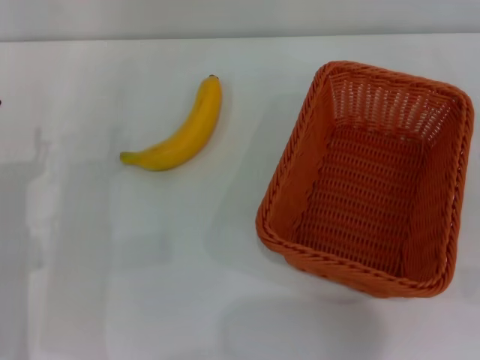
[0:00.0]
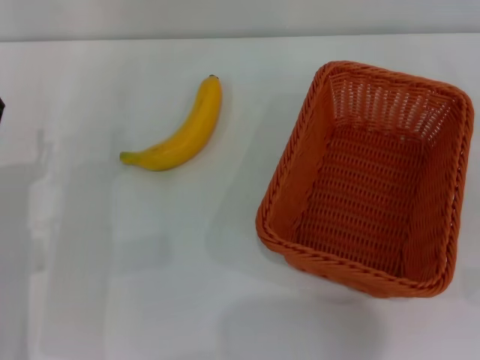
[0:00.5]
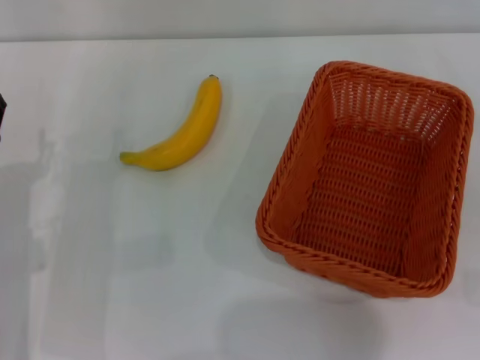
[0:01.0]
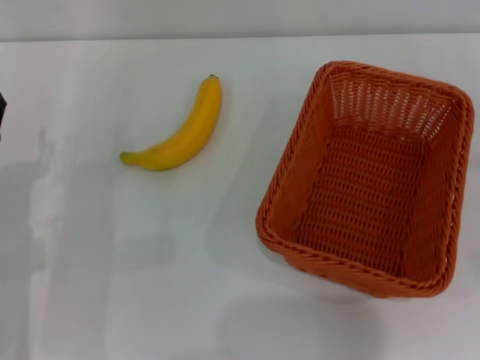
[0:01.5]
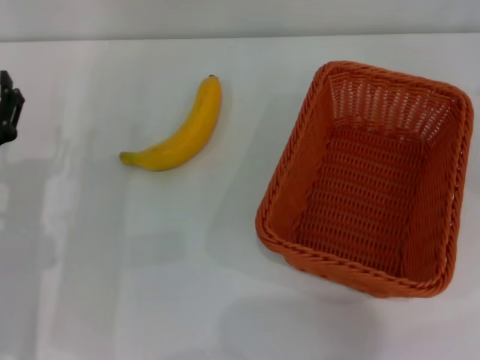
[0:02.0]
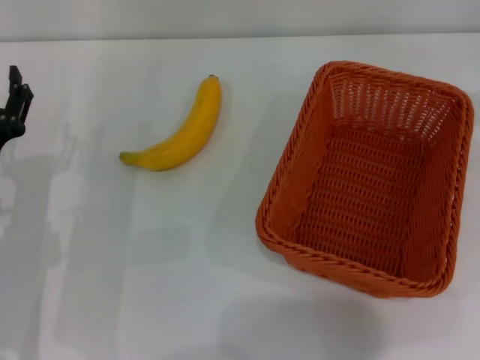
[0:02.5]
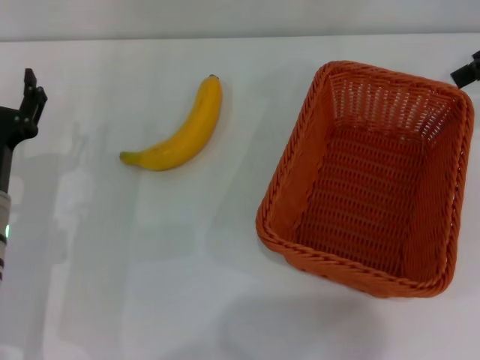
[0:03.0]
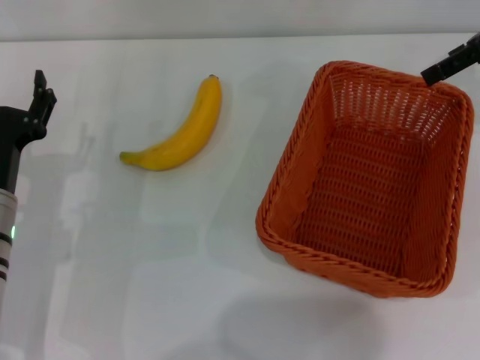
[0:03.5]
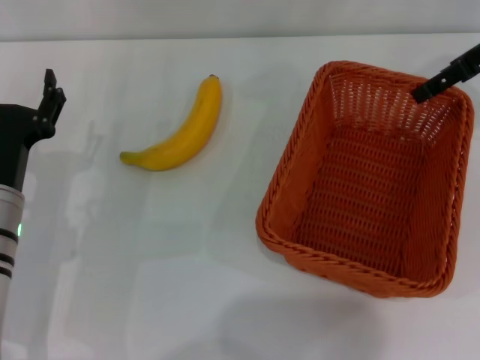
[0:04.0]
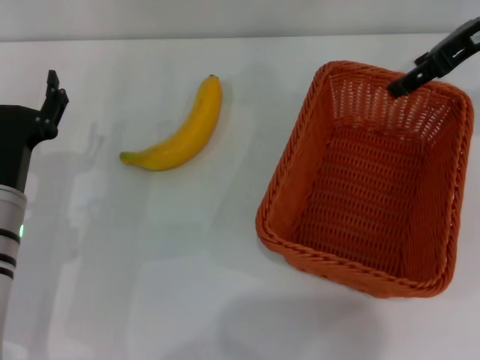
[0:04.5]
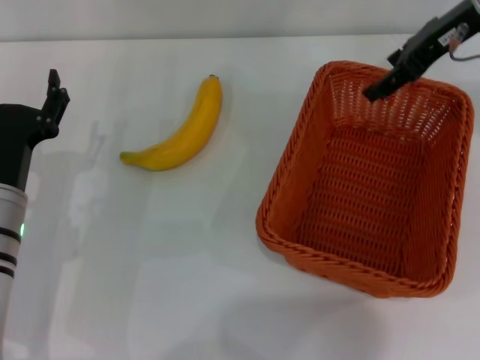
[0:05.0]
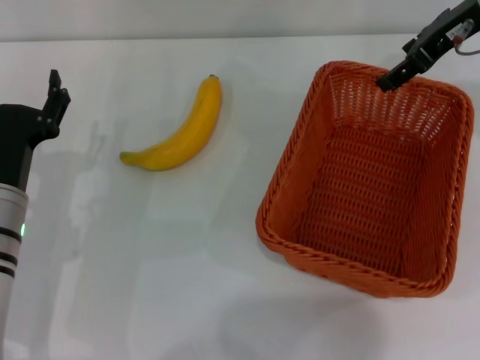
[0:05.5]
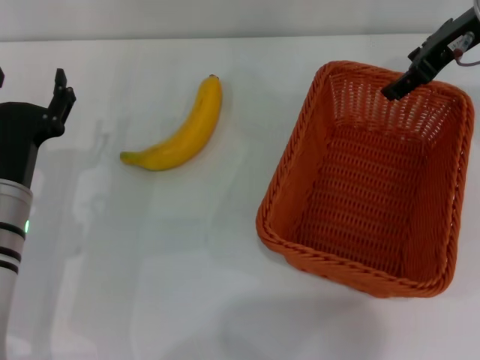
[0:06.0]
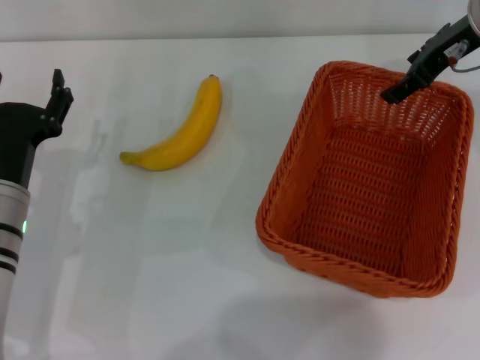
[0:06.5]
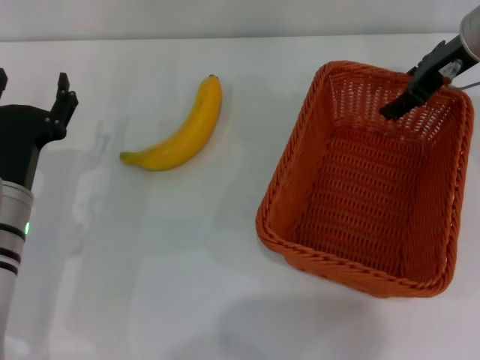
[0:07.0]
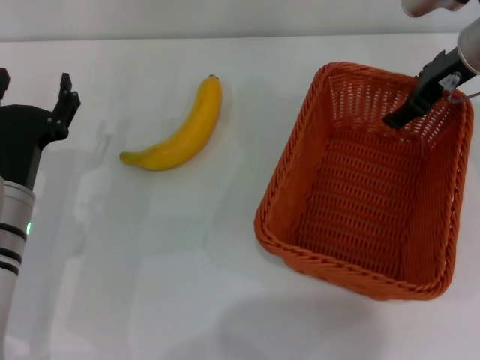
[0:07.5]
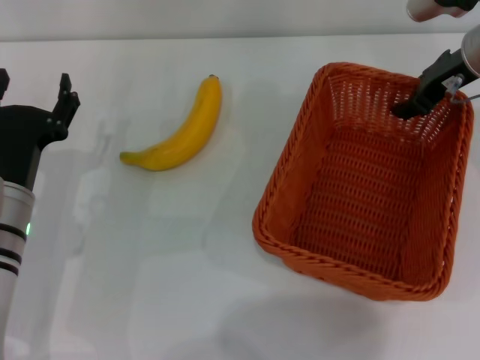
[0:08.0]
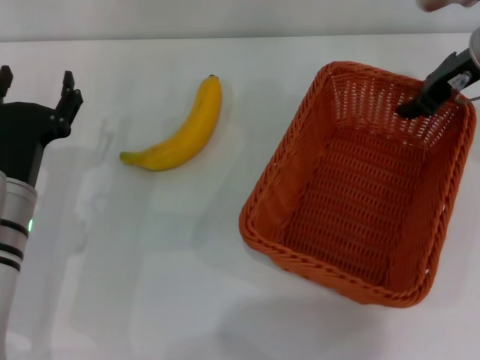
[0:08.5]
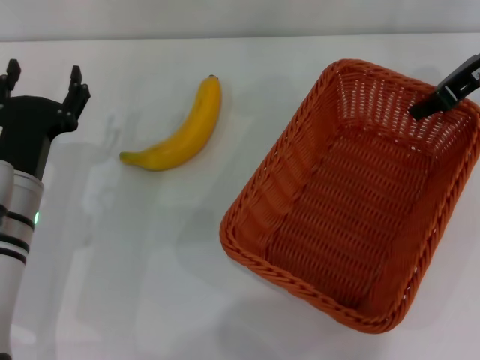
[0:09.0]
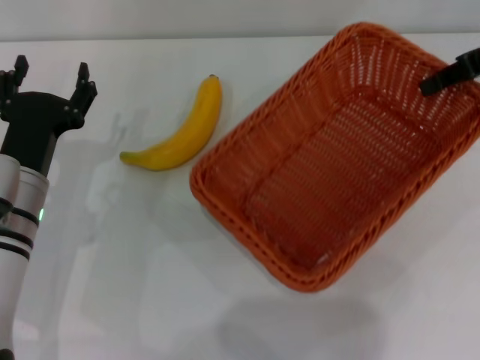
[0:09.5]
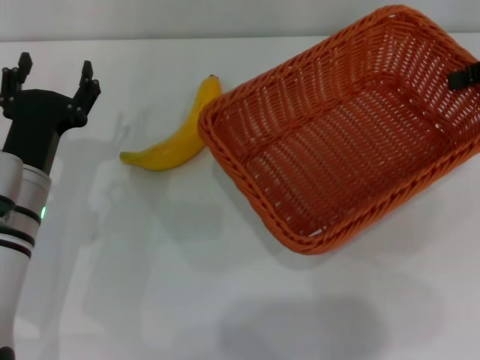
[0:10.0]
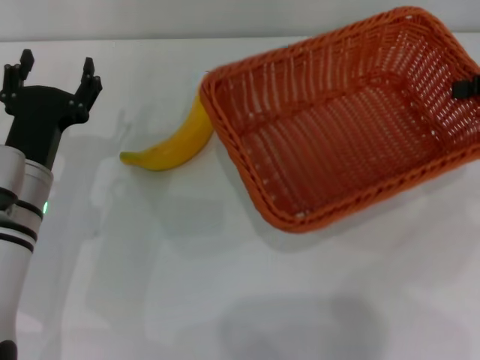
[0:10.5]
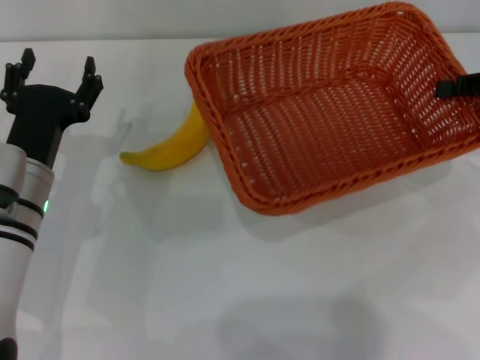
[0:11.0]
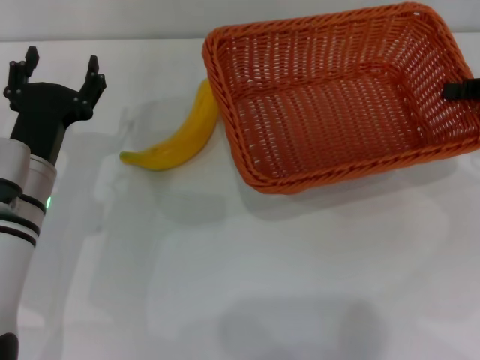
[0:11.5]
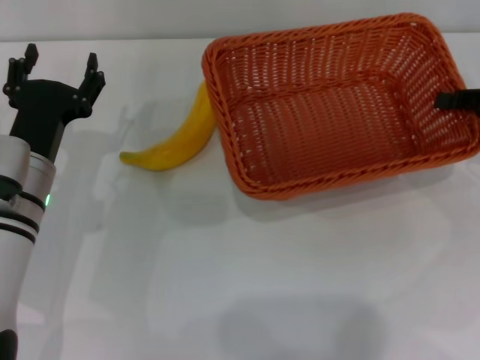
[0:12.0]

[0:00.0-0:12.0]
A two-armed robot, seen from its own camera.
Step, 0:00.0 to 0:08.5: Pick up the light basket with the right gripper.
0:02.0 to 0:04.0: The right gripper heads to the left, forward and upward, covering roughly 20 cm.
0:04.0 to 0:06.0: The right gripper goes some 5 cm to the left.
0:06.0 to 0:08.0: There are only small adjustments of the grippers.
0:08.0 to 0:10.0: The right gripper heads to the right, covering roughly 10 cm, and closes.
0:10.0 to 0:12.0: The right gripper travels downward by approximately 10 cm.

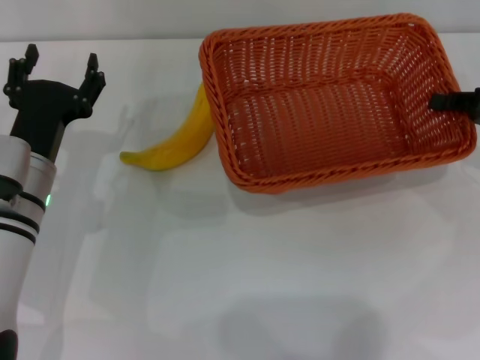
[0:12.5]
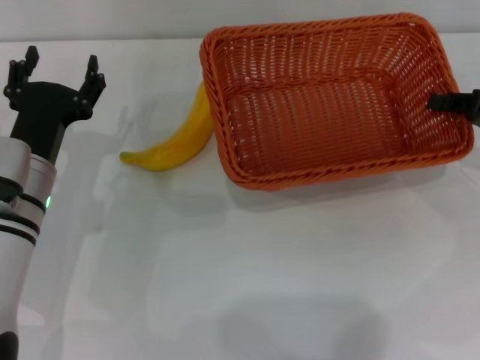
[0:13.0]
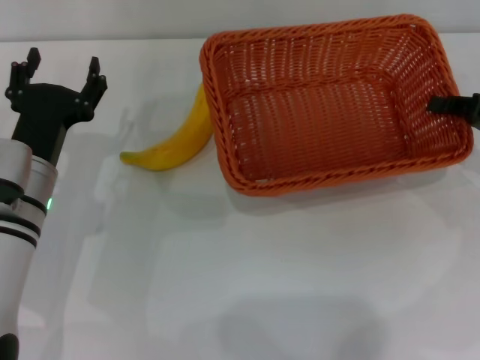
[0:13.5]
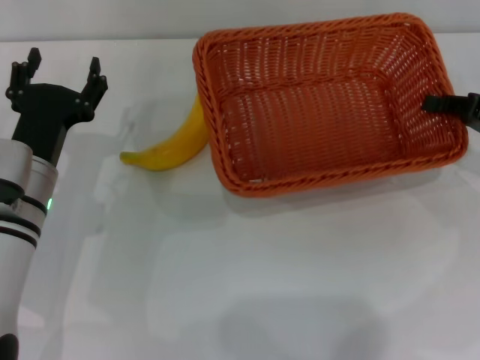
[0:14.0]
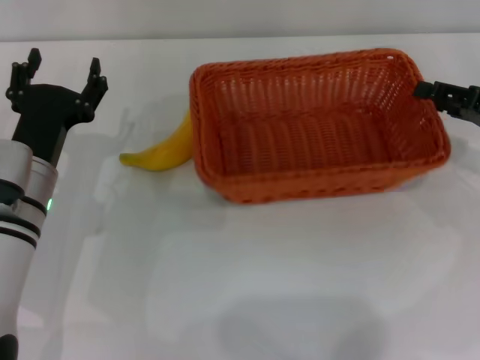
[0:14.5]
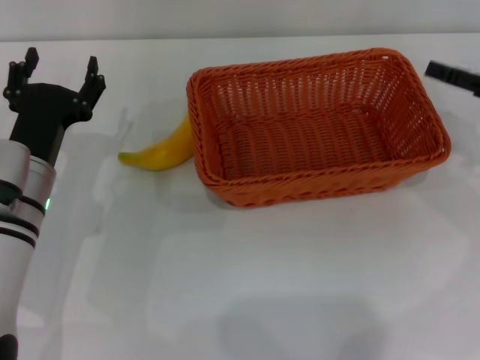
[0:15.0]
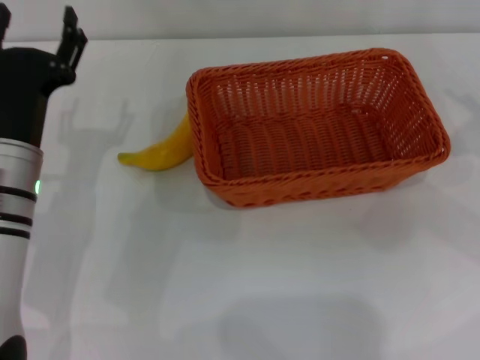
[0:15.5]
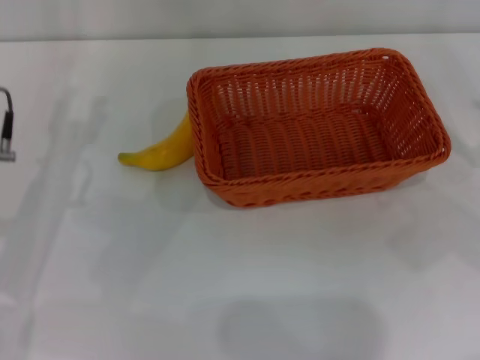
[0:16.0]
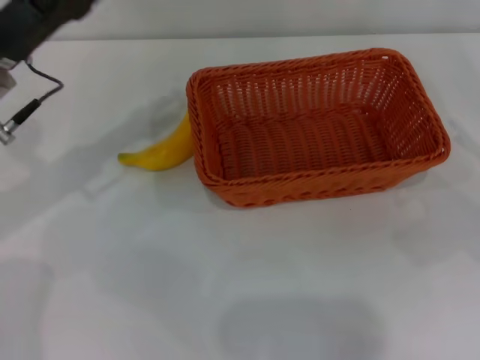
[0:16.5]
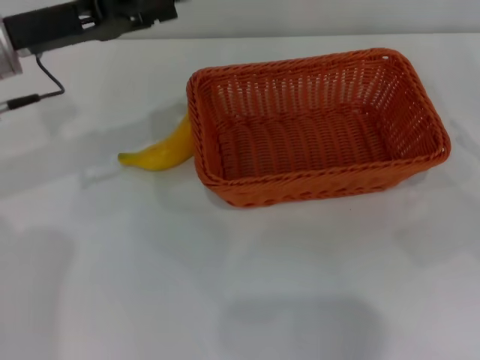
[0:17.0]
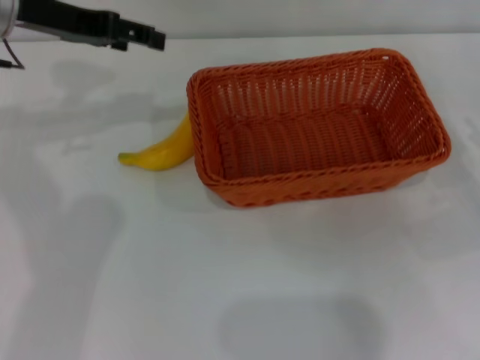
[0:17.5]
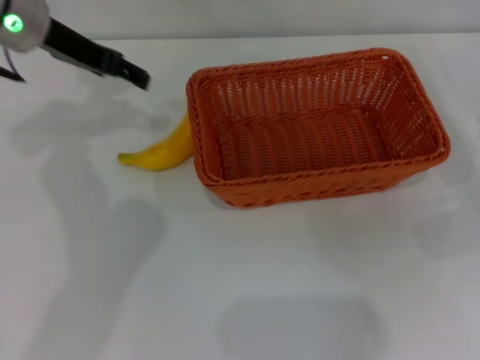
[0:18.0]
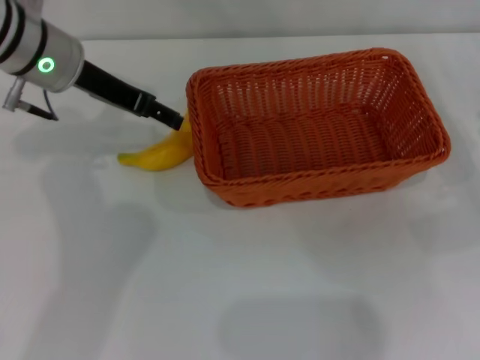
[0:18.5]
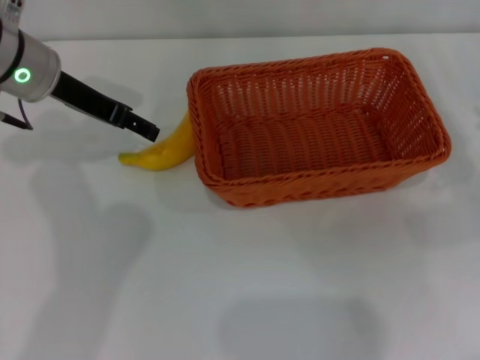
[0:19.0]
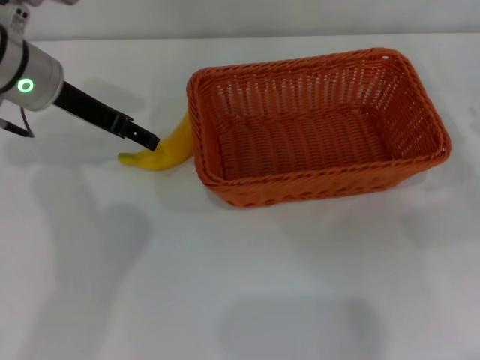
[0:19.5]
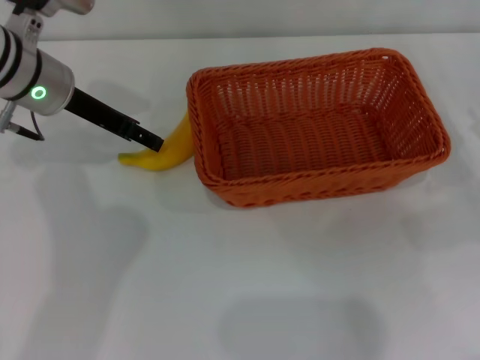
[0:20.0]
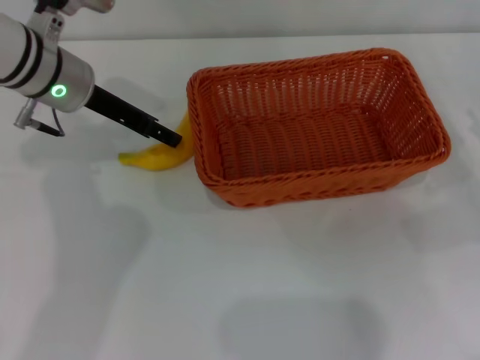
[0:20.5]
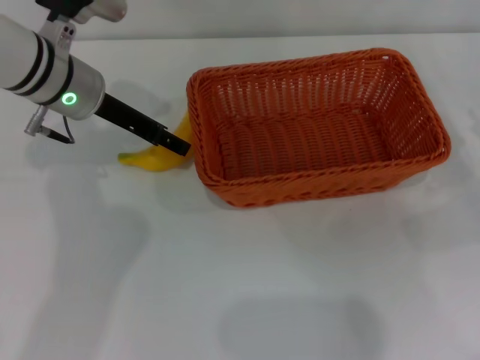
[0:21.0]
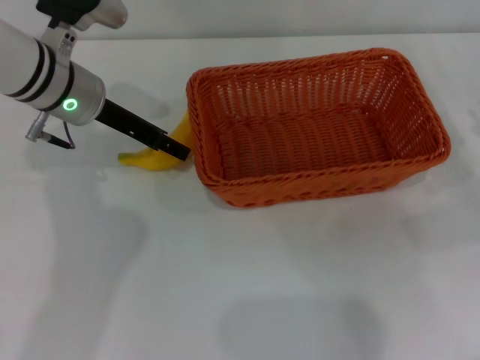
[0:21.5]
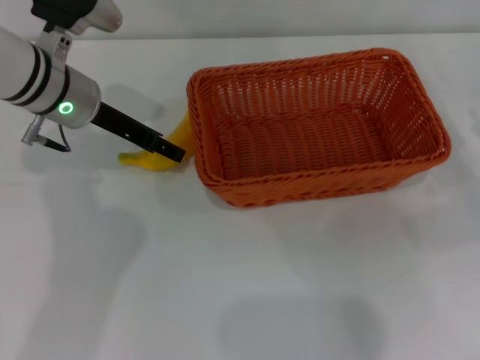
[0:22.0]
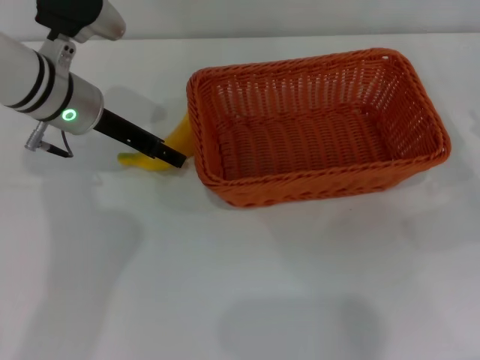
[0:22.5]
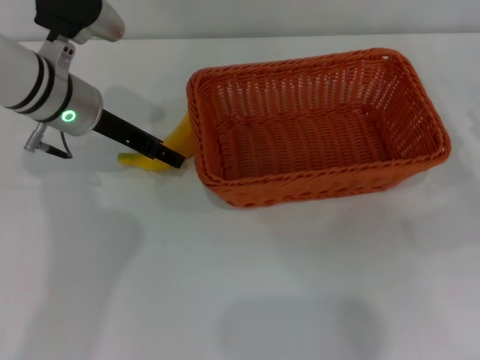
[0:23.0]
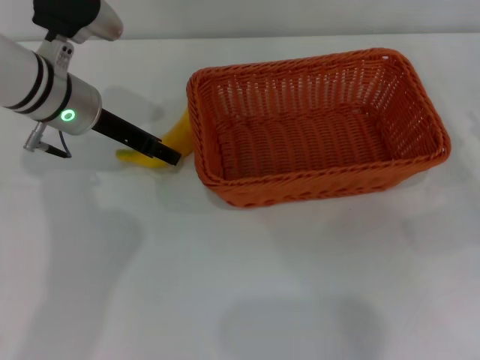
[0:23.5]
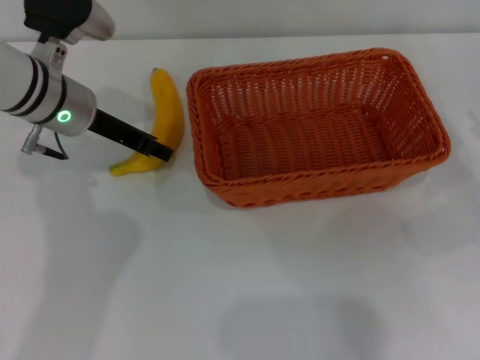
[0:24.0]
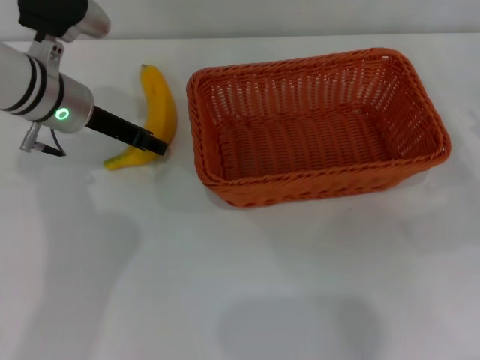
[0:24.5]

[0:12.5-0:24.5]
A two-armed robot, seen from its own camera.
Step, 0:12.5 to 0:14.5: Place the light basket in the center of view with the right gripper.
0:12.5 to 0:14.5: The right gripper opens.
0:14.5 to 0:16.5: The left gripper moves upward, approximately 10 cm. The right gripper heads backward, covering some 5 cm, and opens its fingers.
0:16.5 to 0:18.5: The left gripper moves forward and to the right, some 10 cm.
0:18.5 to 0:22.5: The grippers move only a little.
0:22.5 to 0:24.5: The left gripper closes.

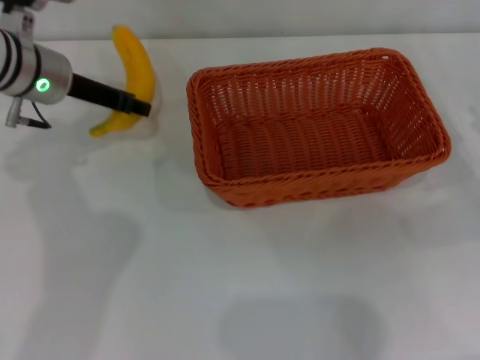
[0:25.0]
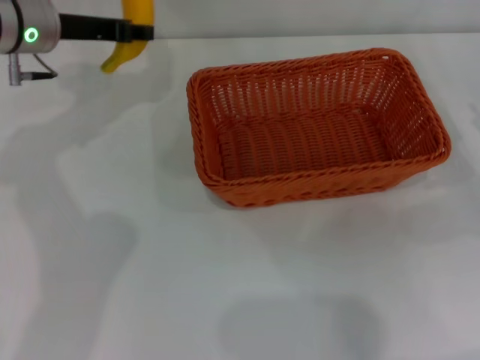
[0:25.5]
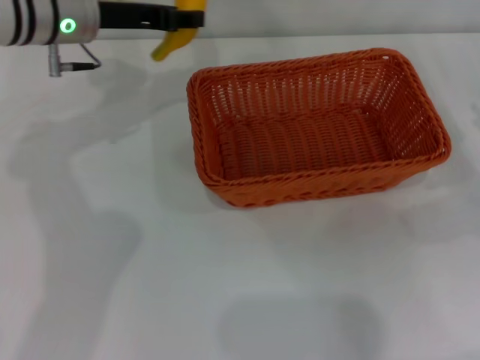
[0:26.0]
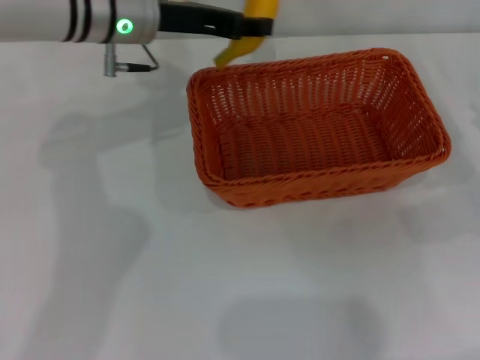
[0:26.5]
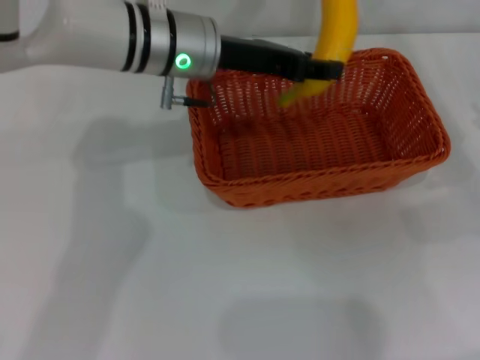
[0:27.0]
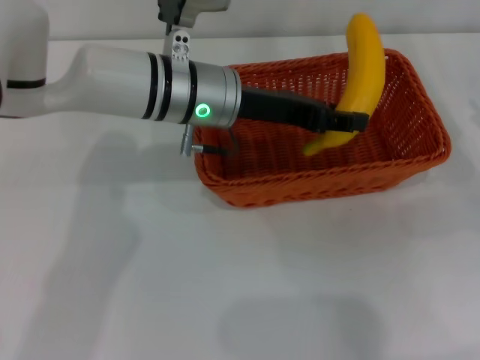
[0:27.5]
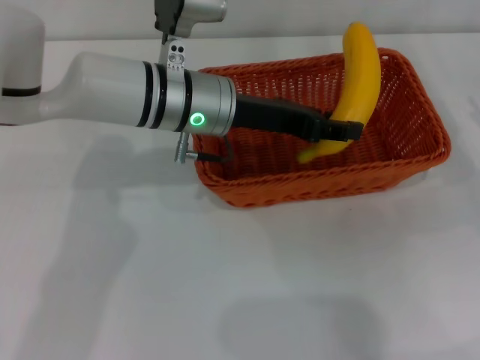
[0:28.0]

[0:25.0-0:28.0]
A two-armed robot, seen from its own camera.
0:25.0 to 0:26.5: The left gripper heads to the right, covering some 10 cm.
0:26.5 to 0:28.0: The left gripper is displaced to the right, backward and downward by some 10 cm.
